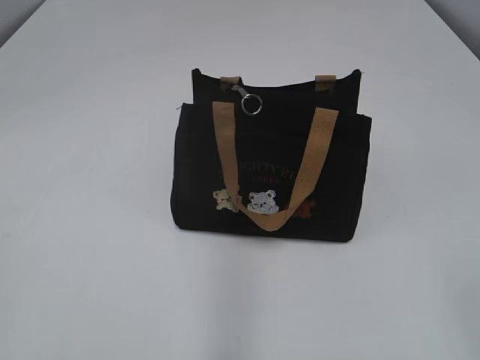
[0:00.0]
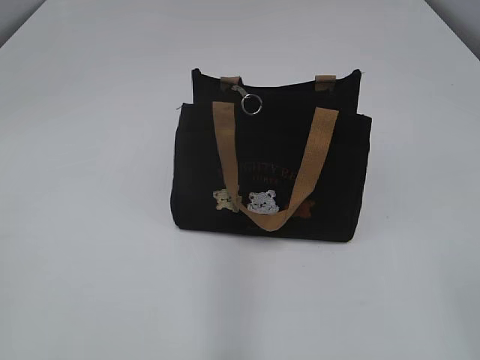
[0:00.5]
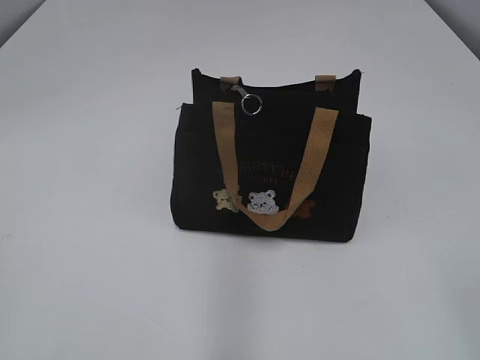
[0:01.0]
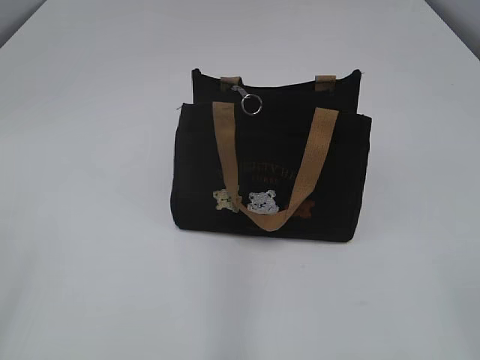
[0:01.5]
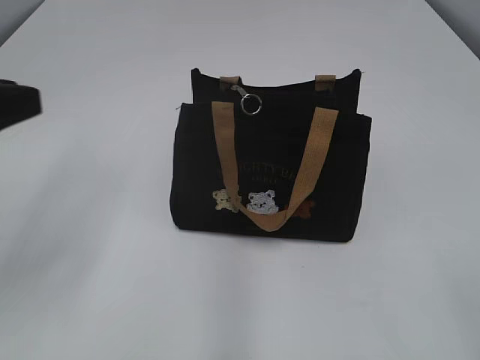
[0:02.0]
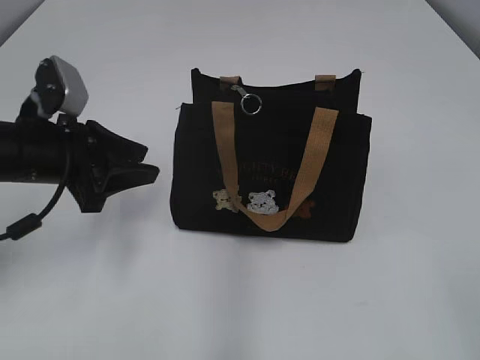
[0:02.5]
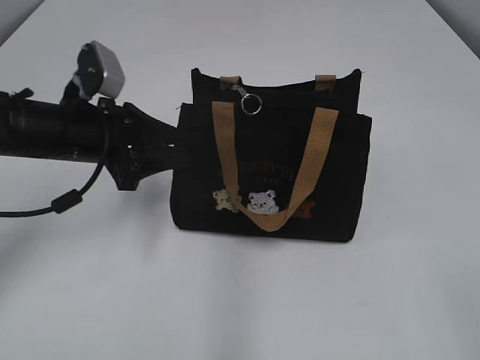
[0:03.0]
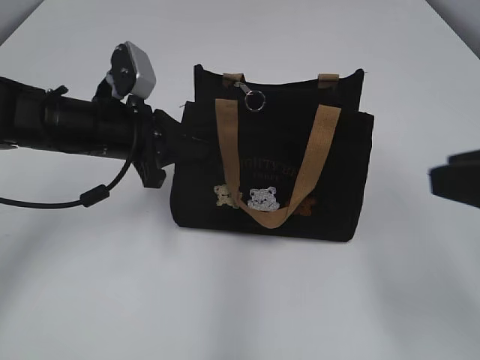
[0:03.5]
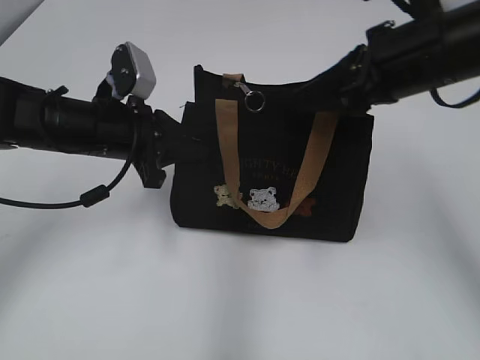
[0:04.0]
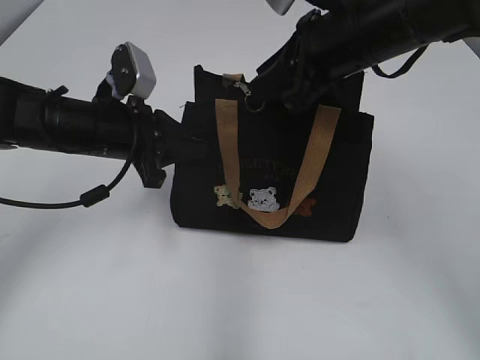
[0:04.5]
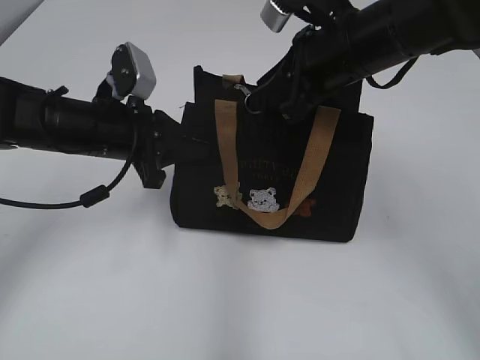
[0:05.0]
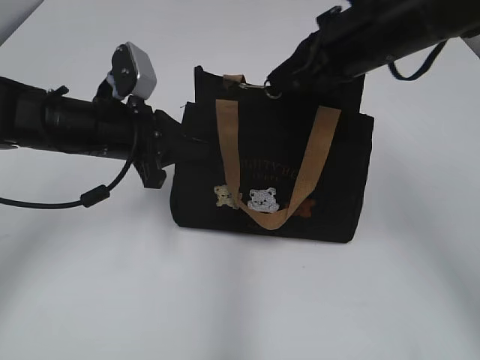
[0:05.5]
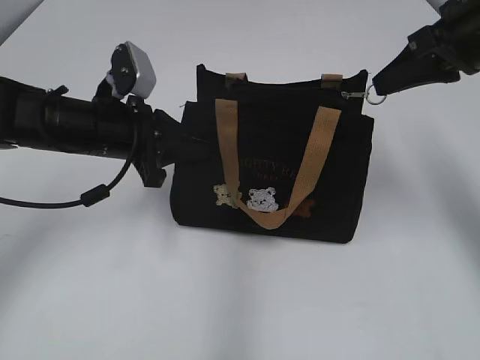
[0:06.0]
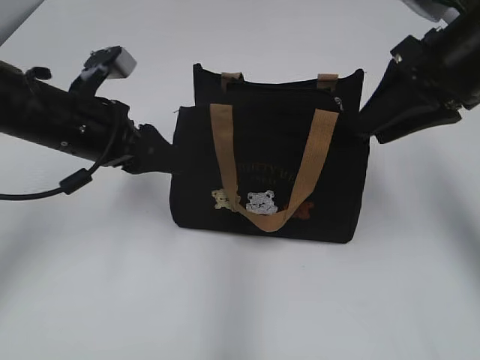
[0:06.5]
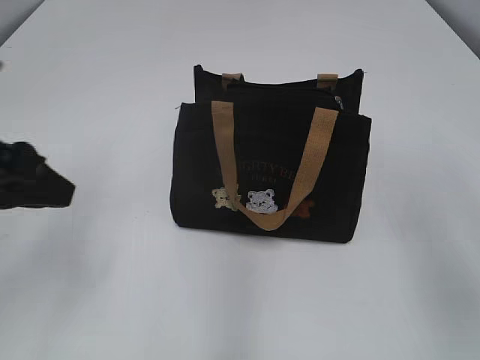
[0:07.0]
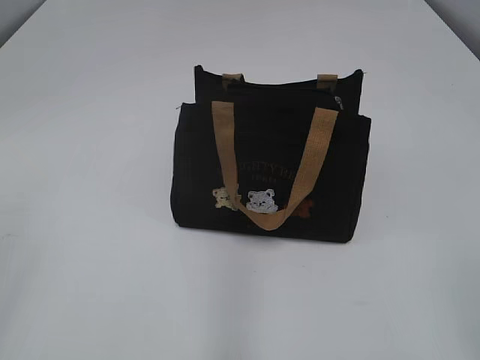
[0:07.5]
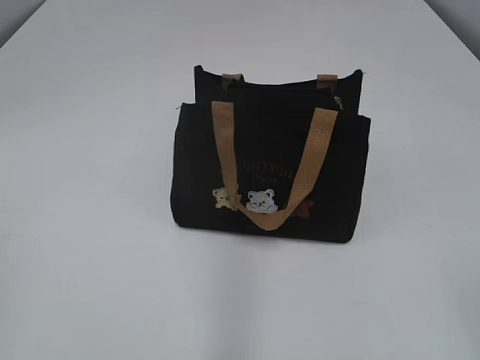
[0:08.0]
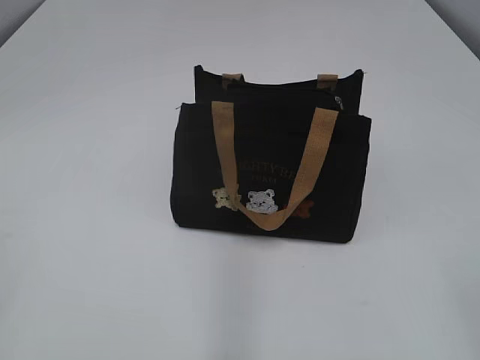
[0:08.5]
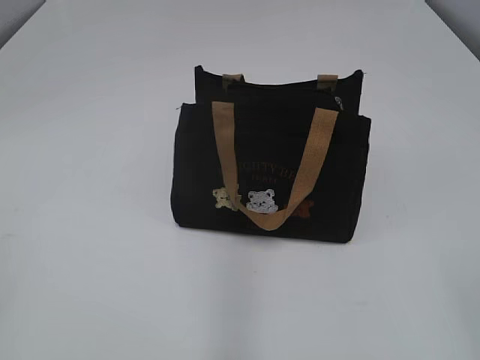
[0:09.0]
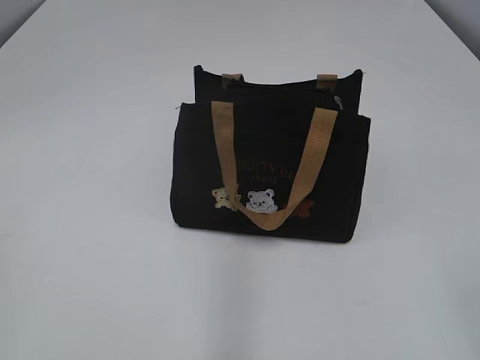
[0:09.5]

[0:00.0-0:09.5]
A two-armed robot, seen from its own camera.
Step, 0:00.0 to 0:06.0: Pull open the zipper with your right hand.
0:02.0 to 0:04.0: The right gripper moves forward, approximately 30 cm. Meanwhile the left gripper heads forward, downward and to the right, covering about 20 cm, and closes up.
0:04.0 to 0:05.5: The right gripper changes place by roughly 5 cm, and closes.
0:05.5 to 0:07.5: The left gripper goes about 35 cm backward, upward and to the left, and opens its fingers. The right gripper heads backward, covering approximately 30 cm, and opens.
